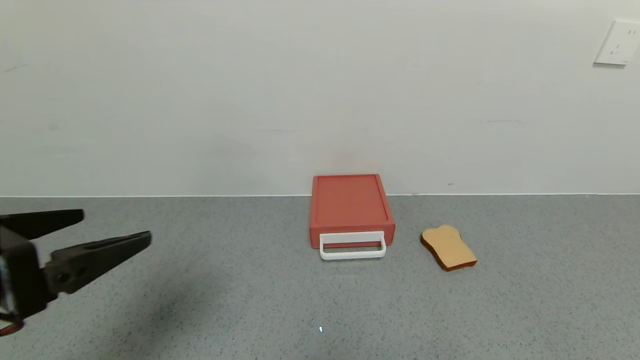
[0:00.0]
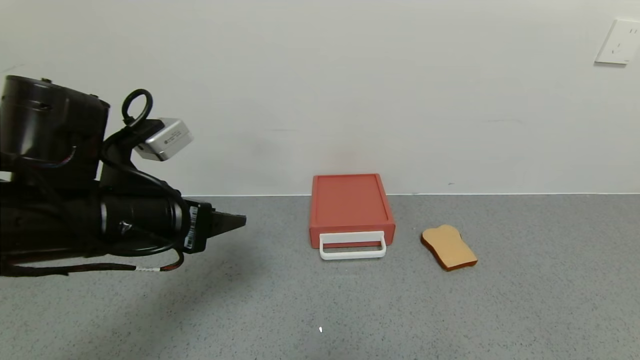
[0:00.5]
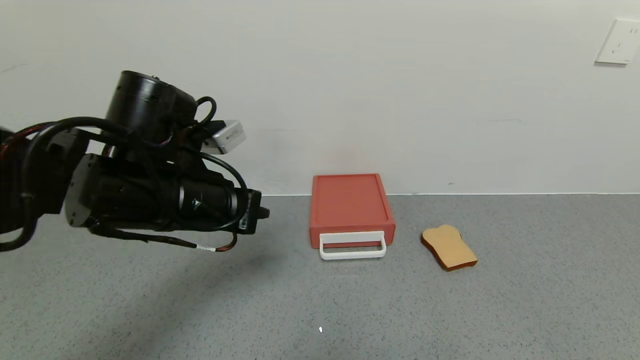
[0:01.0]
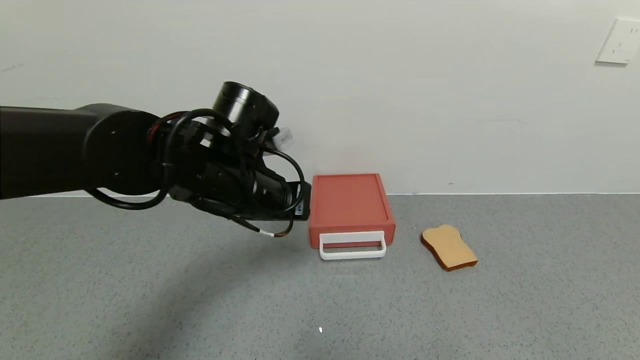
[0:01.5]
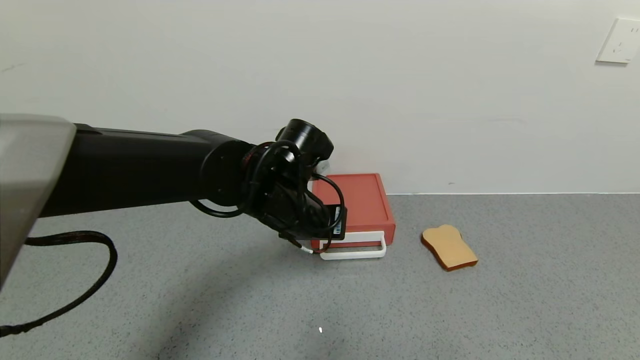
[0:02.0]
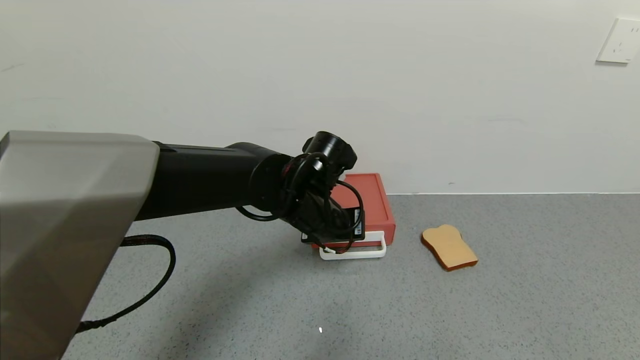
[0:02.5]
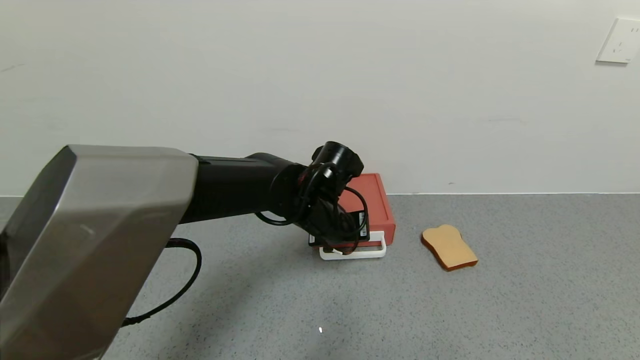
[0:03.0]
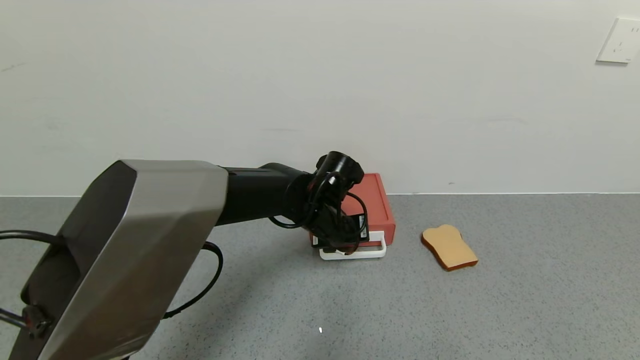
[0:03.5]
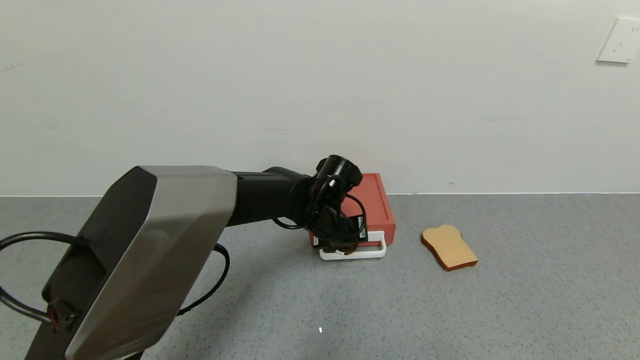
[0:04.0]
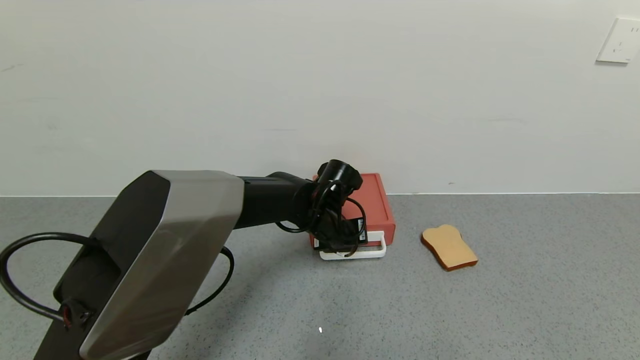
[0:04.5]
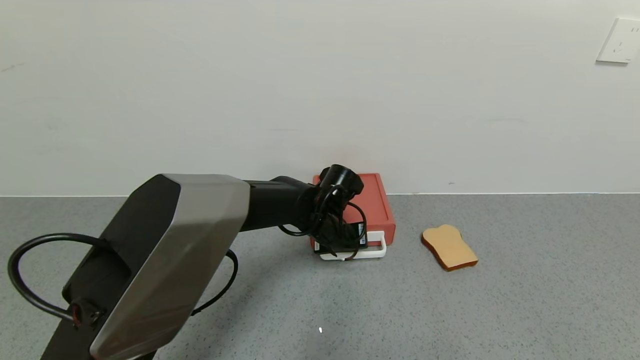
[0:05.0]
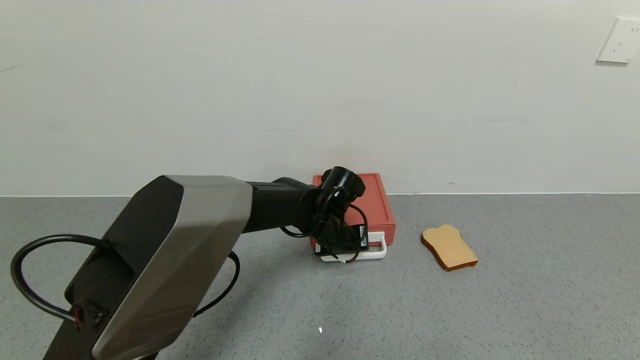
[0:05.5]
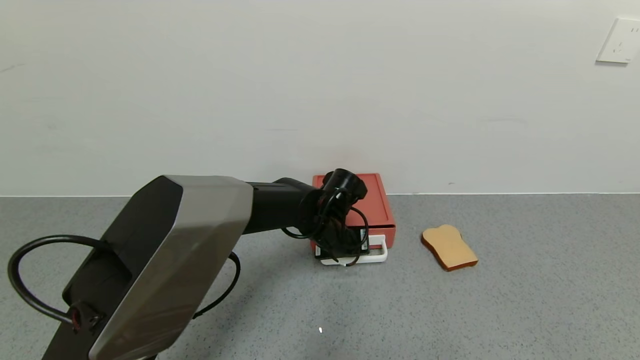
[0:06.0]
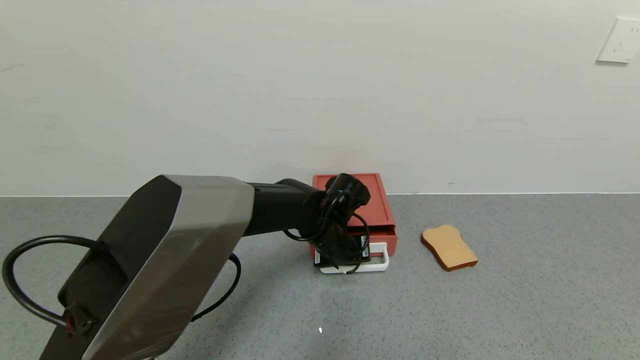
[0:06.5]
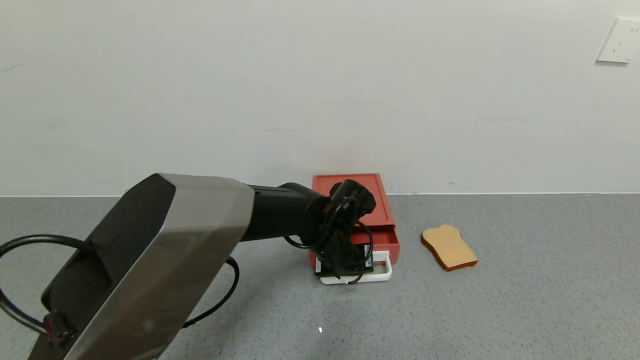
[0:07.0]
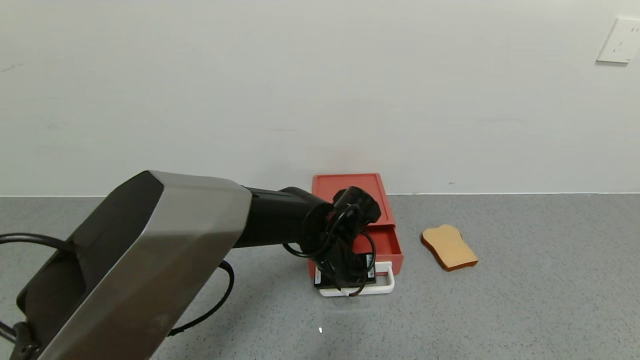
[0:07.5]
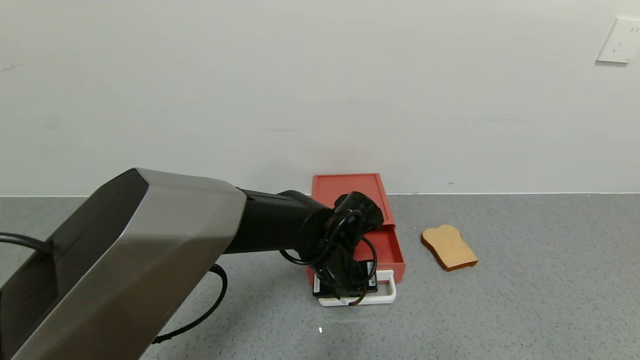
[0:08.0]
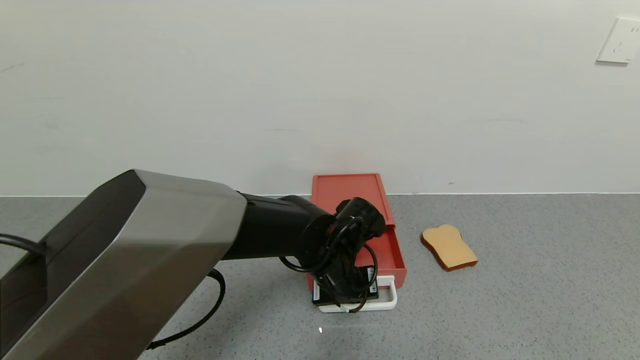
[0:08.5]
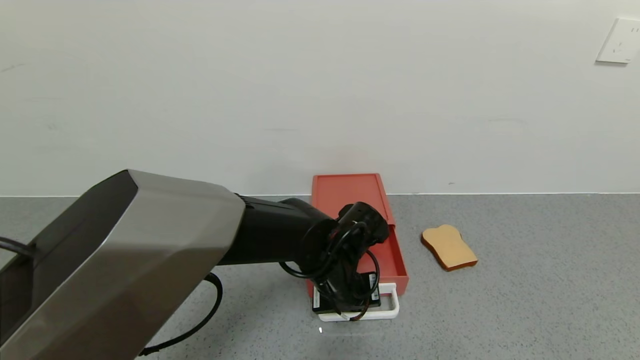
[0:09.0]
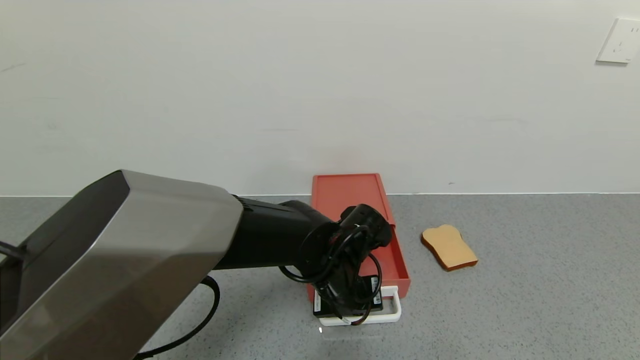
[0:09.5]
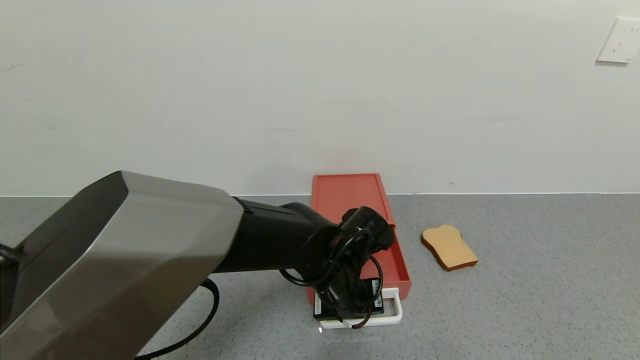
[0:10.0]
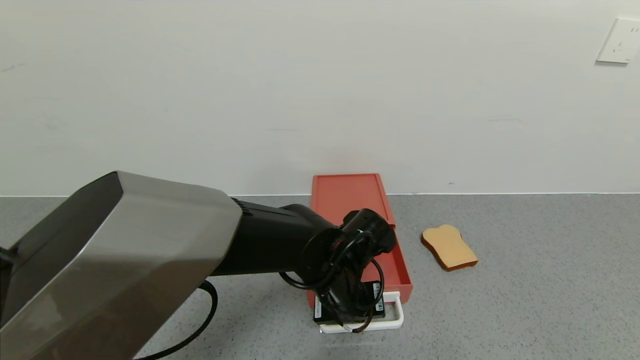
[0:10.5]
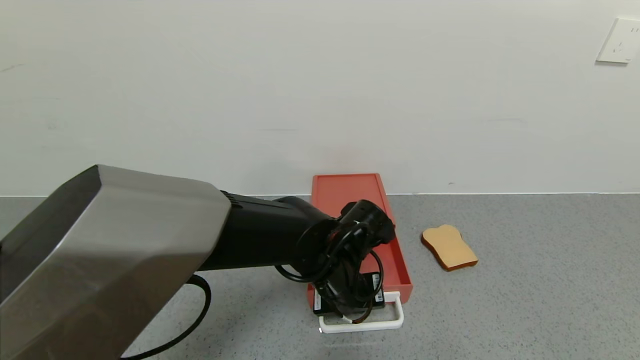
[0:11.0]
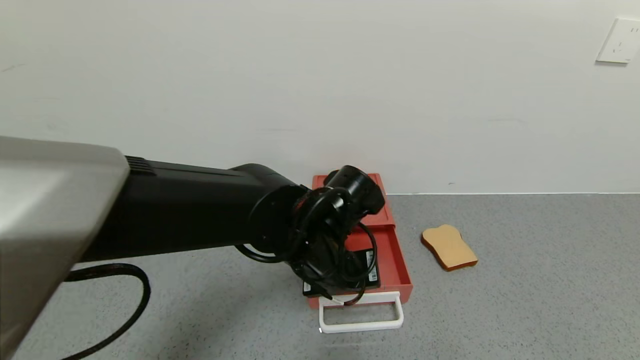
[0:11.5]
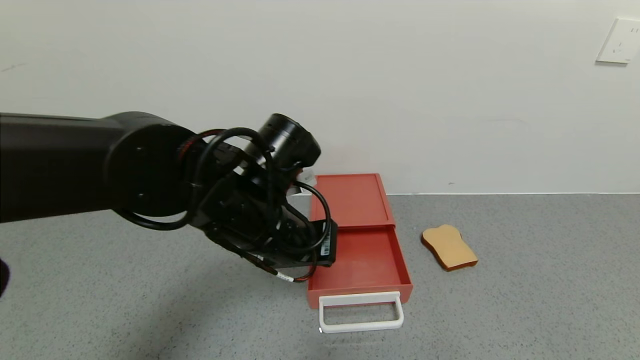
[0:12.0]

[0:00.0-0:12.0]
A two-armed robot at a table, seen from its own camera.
Task of the whole recording: use the gripper to open the drawer and close the red drawer.
Step, 0:00.0 to 0:11.5: Open the red drawer with the left gripper.
0:00.0 to 0:02.0: The left gripper is displaced forward and to the right by roughly 30 cm, and closes its fingers.
0:02.0 to 0:04.0: The left gripper shifts some 10 cm downward and forward.
0:04.0 to 0:06.0: The grippers make only small movements.
0:06.0 to 0:08.0: The left gripper shifts some 5 cm backward.
0:08.0 to 0:10.0: There are only small adjustments of the grippers.
0:10.0 to 0:12.0: The left gripper shifts roughly 15 cm upward and to the left.

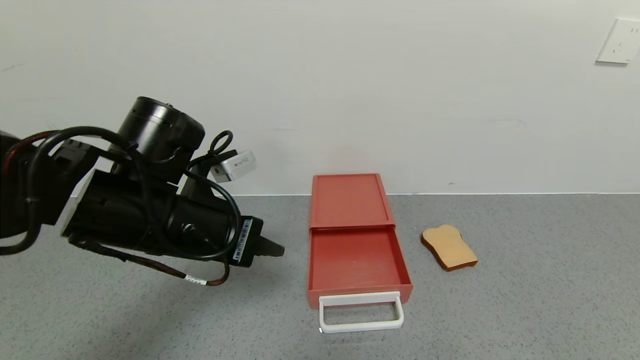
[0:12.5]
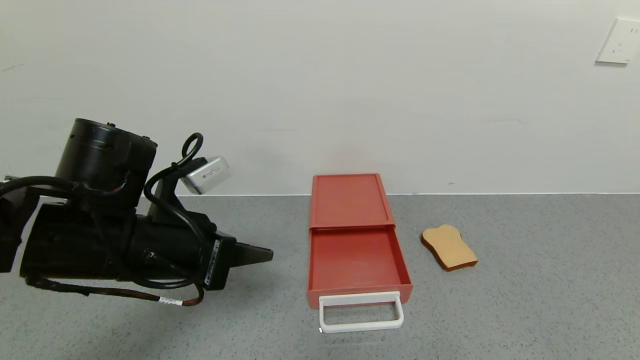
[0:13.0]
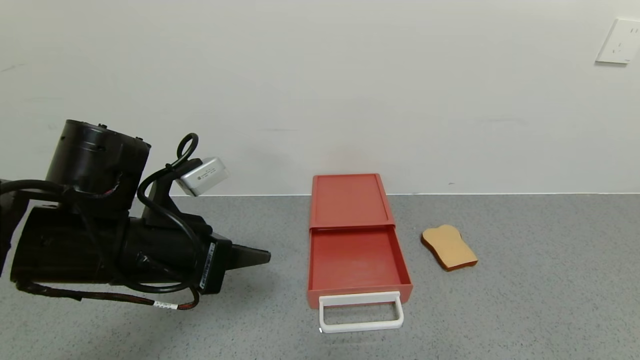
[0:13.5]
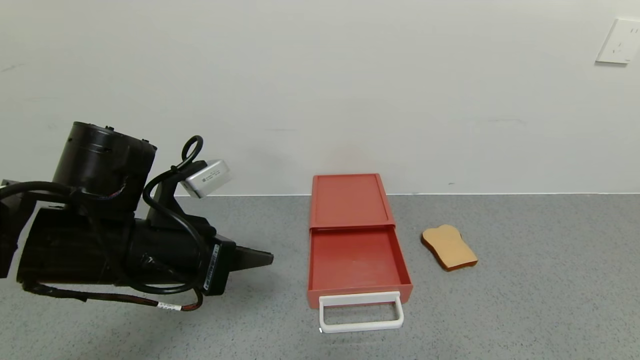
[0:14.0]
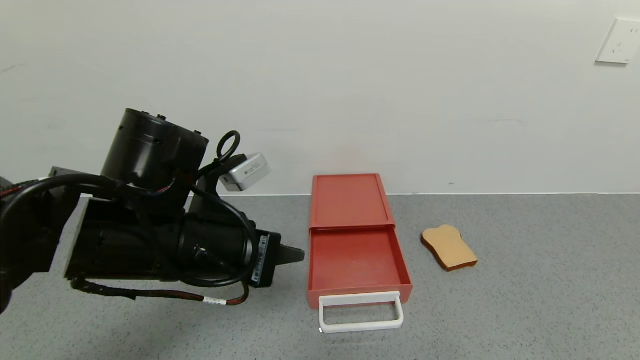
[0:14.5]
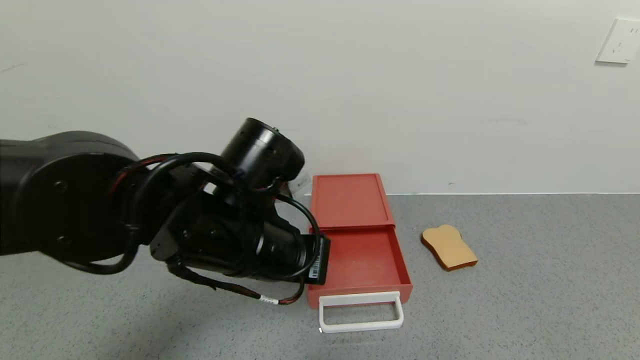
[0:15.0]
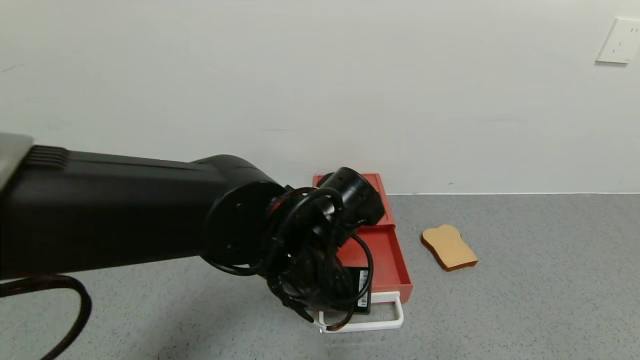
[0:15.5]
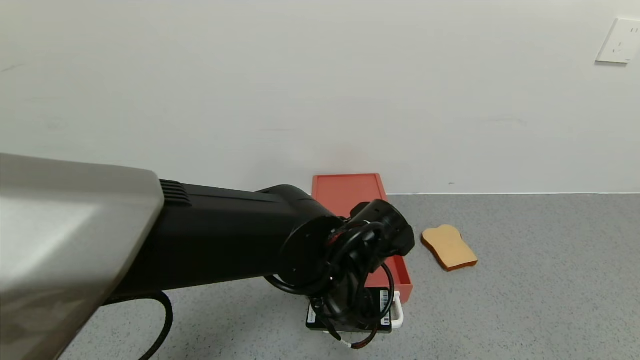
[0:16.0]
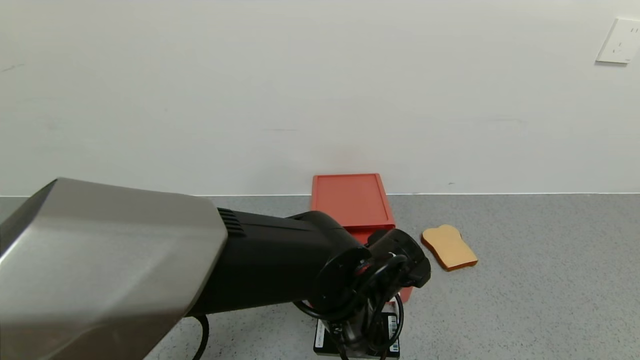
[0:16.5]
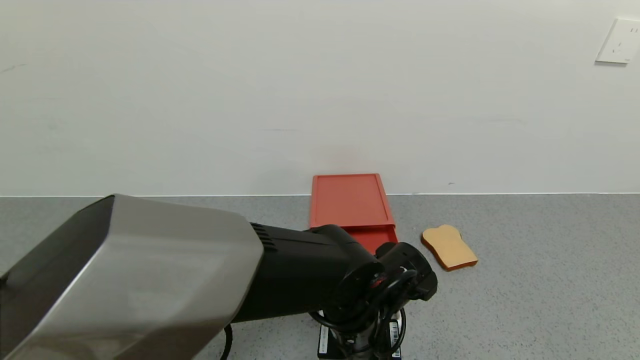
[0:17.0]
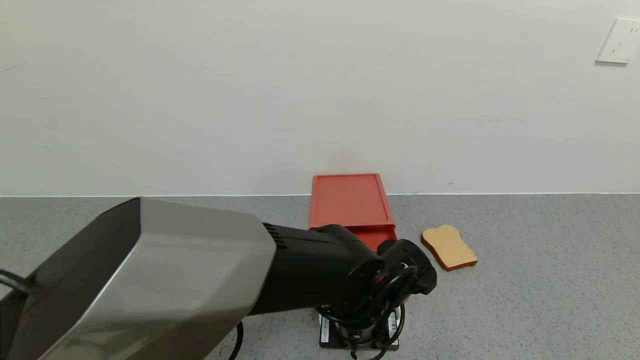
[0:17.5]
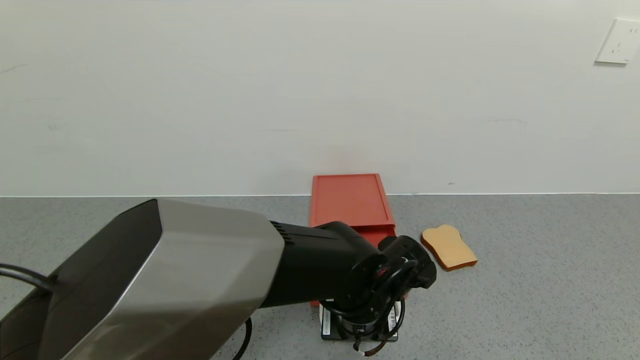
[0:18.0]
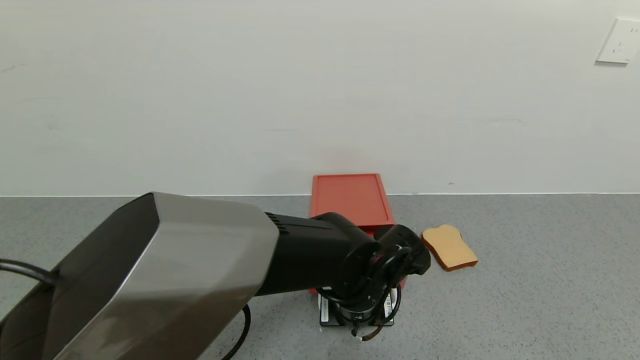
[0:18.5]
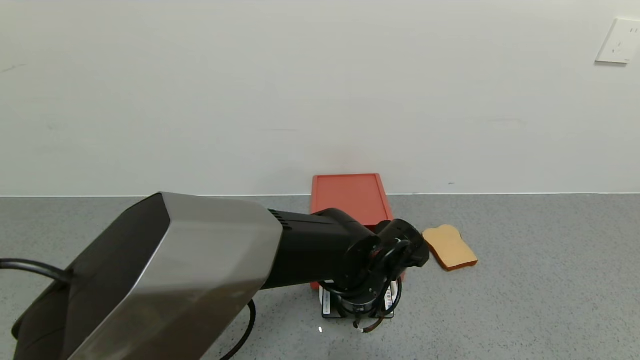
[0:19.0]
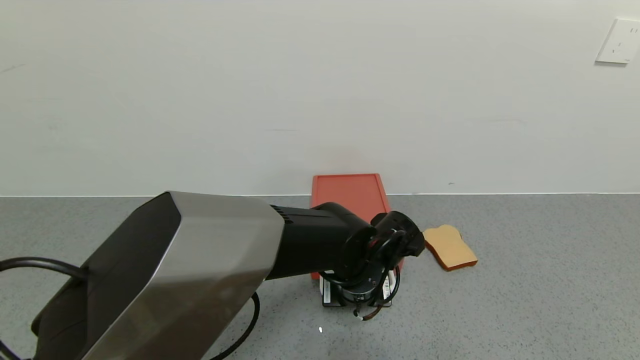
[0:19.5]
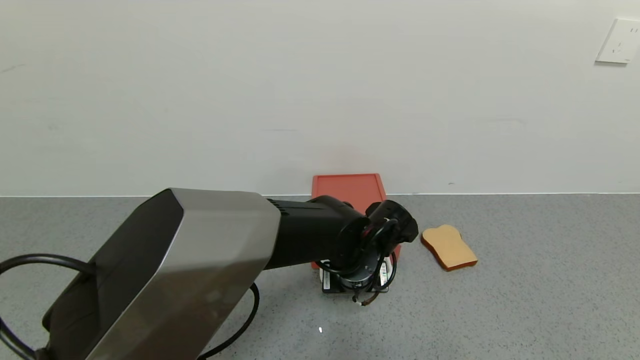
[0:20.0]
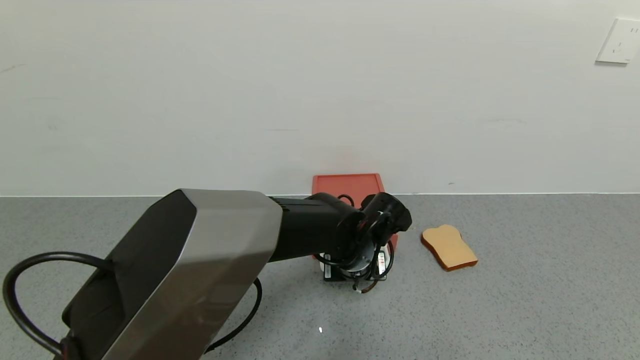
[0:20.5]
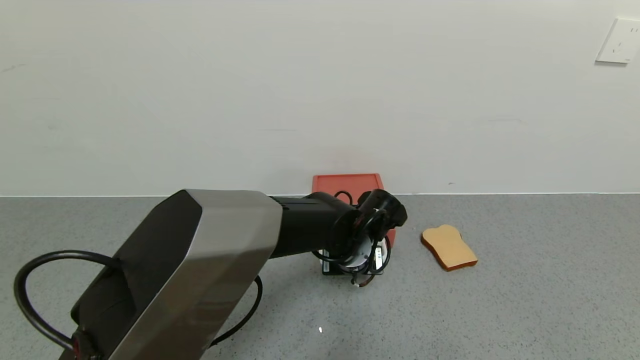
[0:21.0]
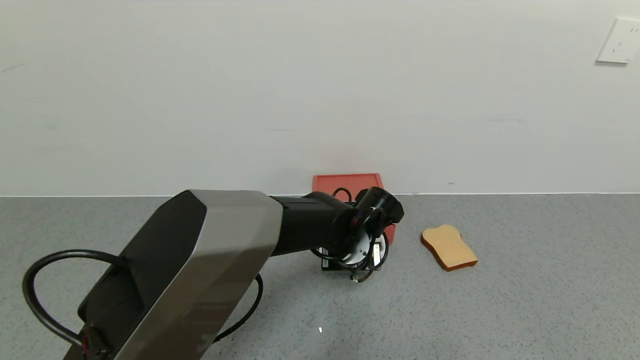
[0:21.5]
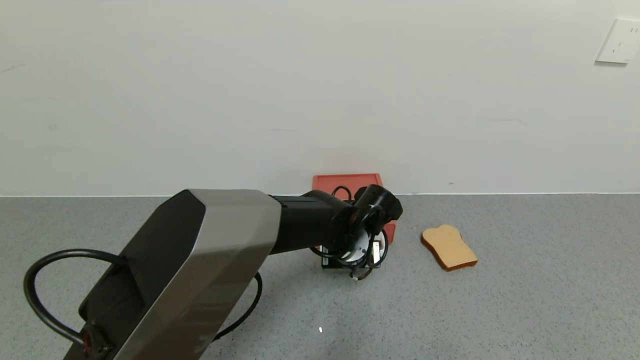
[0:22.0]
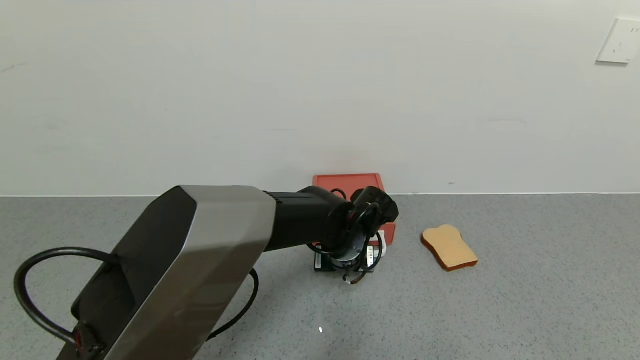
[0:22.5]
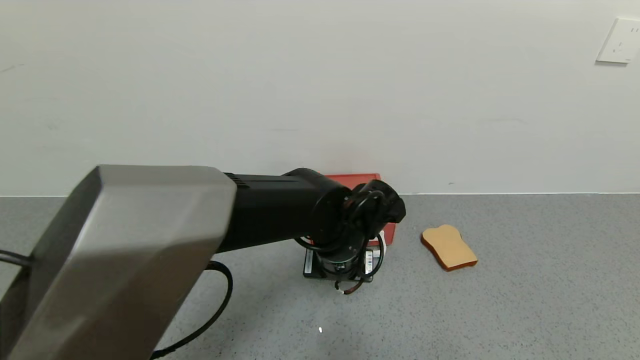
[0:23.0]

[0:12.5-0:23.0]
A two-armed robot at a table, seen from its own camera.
Task of the whole recording: use the gripper to open the drawer and close the red drawer.
0:12.5 to 0:14.5: There are only small adjustments of the grippers.
0:14.5 to 0:16.5: The left gripper is displaced to the right and downward by about 20 cm.
0:16.5 to 0:19.0: The left gripper shifts by approximately 5 cm.
0:19.0 to 0:21.0: The left gripper shifts roughly 5 cm forward.
0:21.0 to 0:23.0: The left gripper moves approximately 5 cm.
